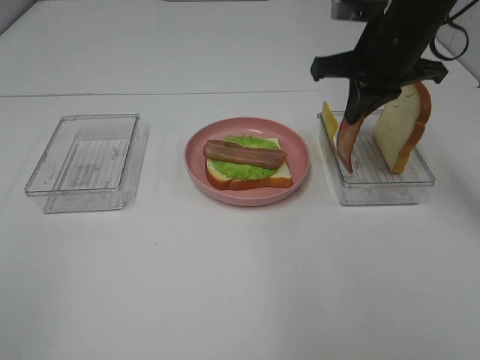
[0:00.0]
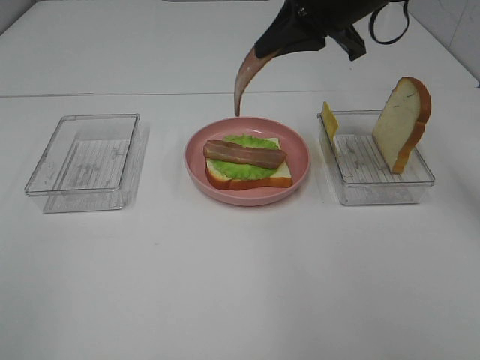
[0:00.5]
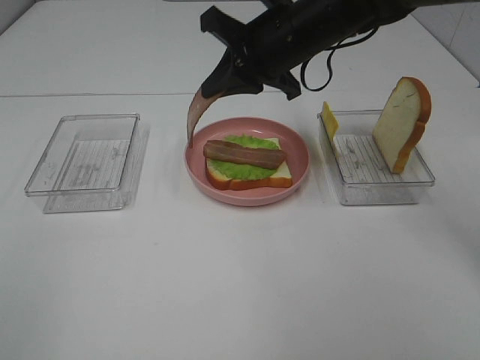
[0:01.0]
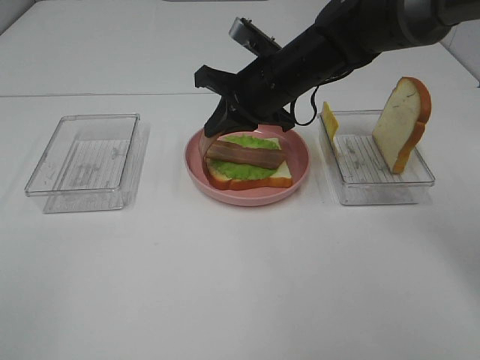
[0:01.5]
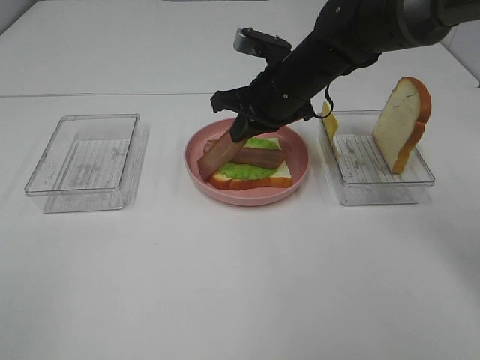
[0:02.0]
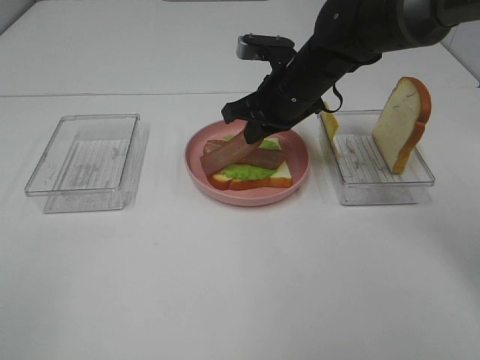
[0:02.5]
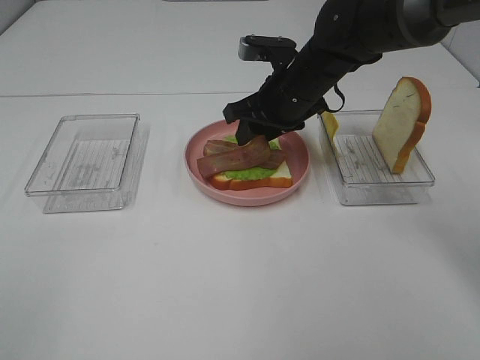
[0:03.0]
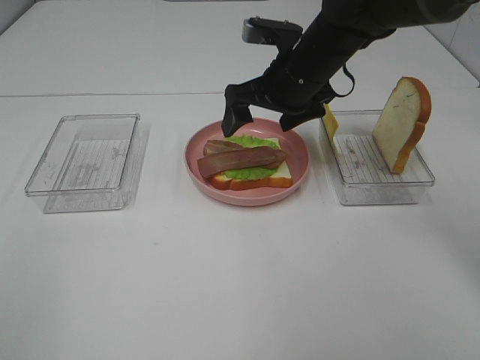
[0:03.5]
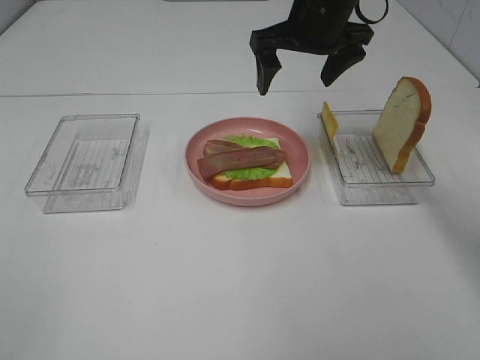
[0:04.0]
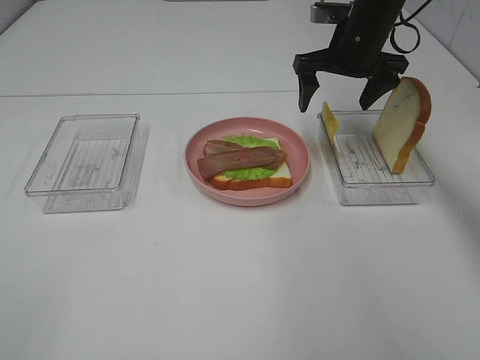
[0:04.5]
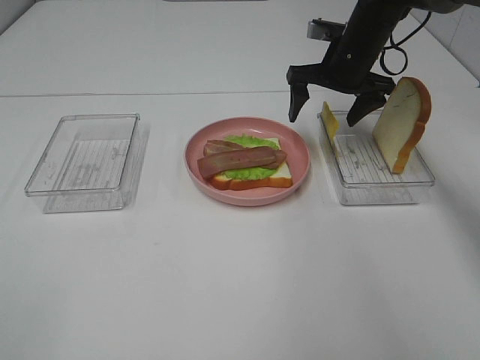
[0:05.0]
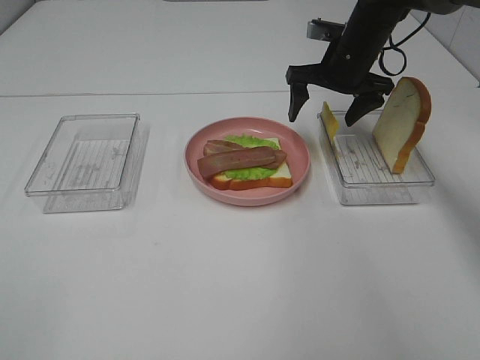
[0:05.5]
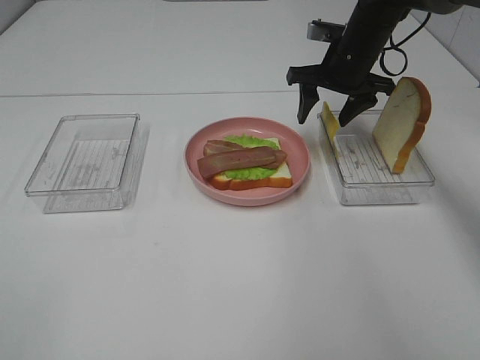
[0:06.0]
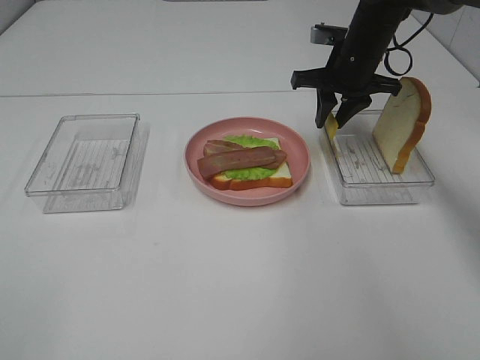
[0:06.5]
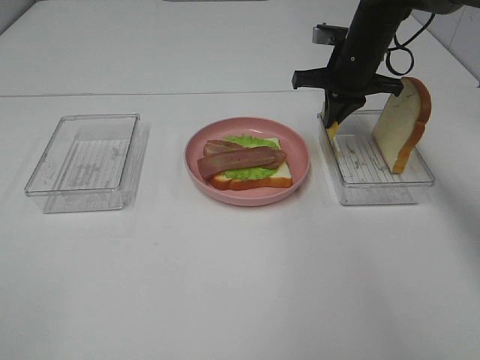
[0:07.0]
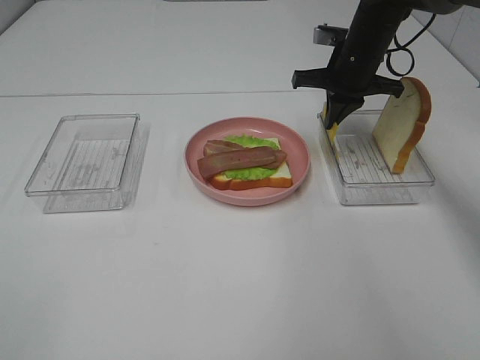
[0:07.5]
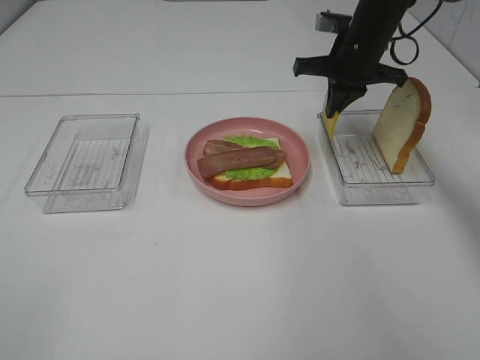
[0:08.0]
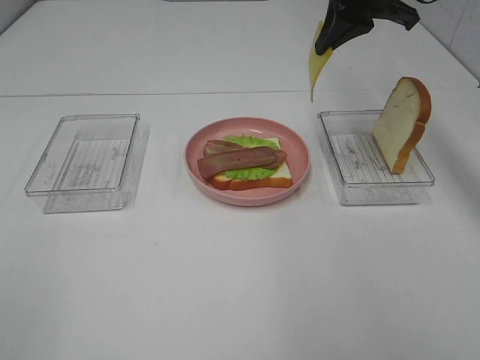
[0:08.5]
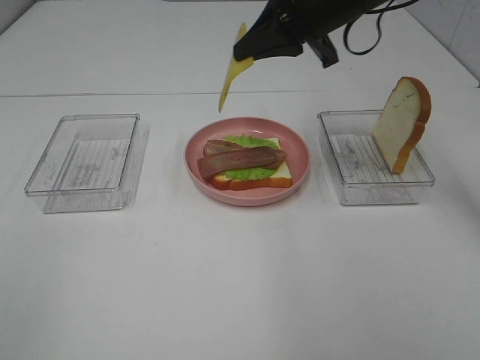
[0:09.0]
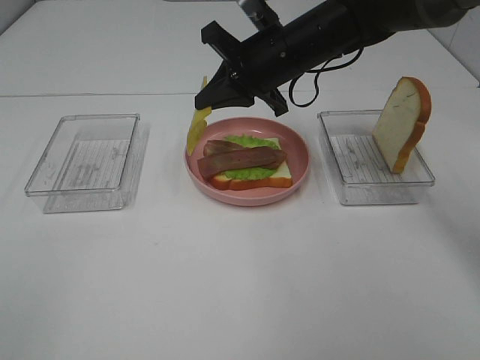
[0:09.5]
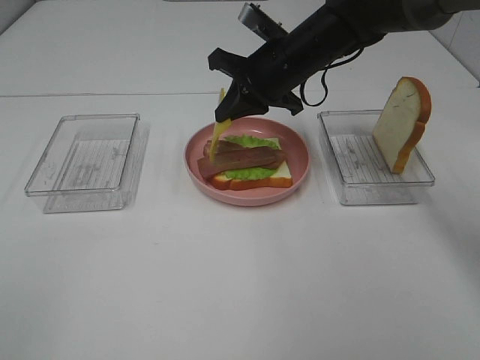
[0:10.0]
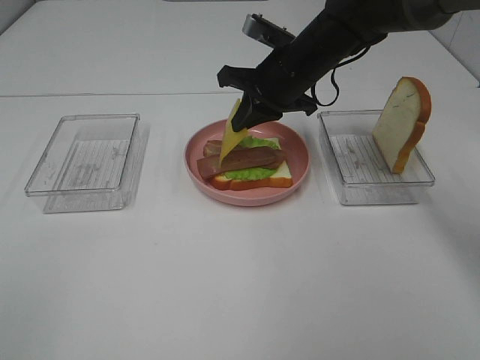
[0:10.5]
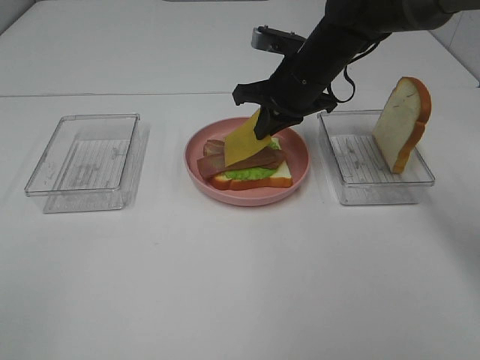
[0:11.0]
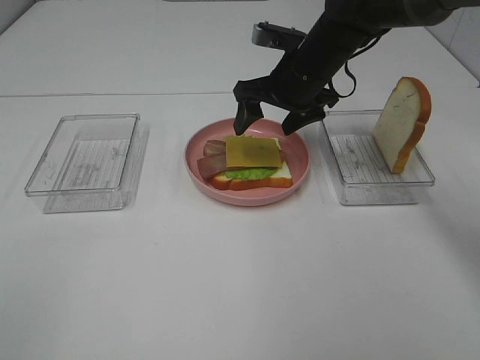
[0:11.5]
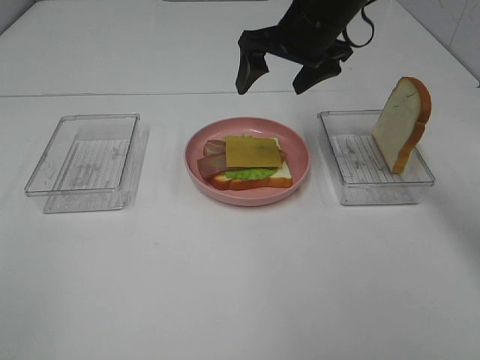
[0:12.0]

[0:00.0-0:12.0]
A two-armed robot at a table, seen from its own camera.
Task of the whole recording: Make sandwiches.
Step, 0:00.0 to 0:03.0: Right hand:place bacon on bacon.
Step, 0:03.5 to 0:07.5: Right hand:grab the cheese slice.
Step, 0:08.0 to 0:11.0: Right hand:place the cheese slice on top of the bacon.
0:00.0 to 0:02.0: The right gripper is displaced to the left and downward by some 15 cm.
0:02.0 to 0:04.0: The right gripper travels upward by roughly 10 cm, and opens.
0:04.0 to 0:06.0: The right gripper shifts some 10 cm downward and to the right.
0:06.0 to 0:08.0: The right gripper closes its fingers.
0:08.0 to 0:10.0: The right gripper travels to the left and backward by some 10 cm, and goes upward and returns, approximately 10 cm each way.
0:10.0 to 0:12.0: The right gripper travels upward by about 5 cm, and opens.

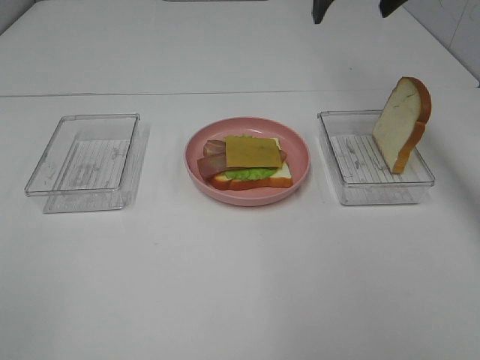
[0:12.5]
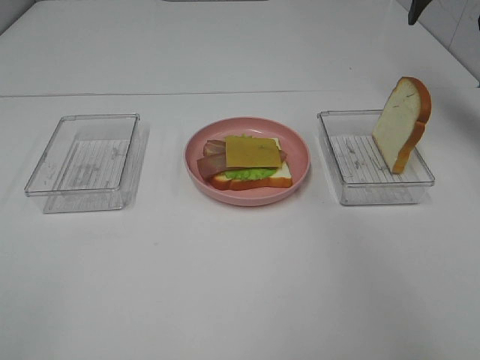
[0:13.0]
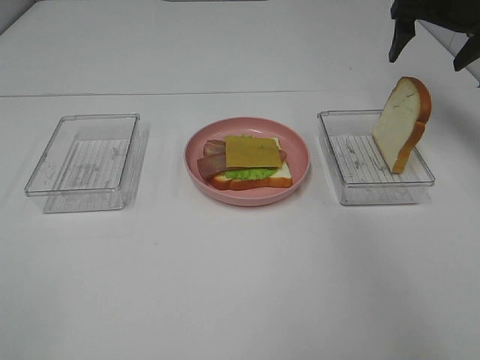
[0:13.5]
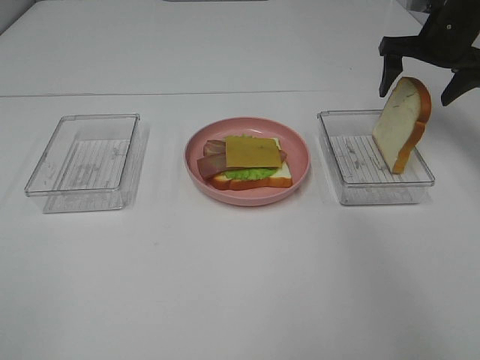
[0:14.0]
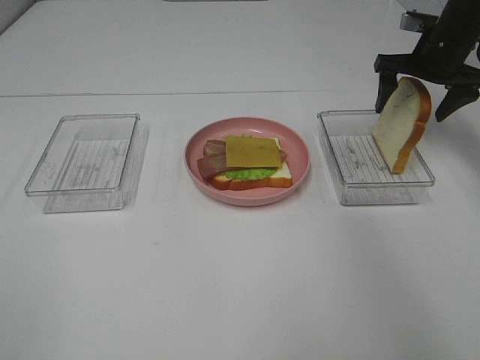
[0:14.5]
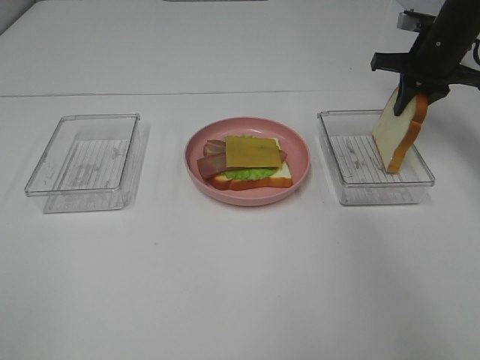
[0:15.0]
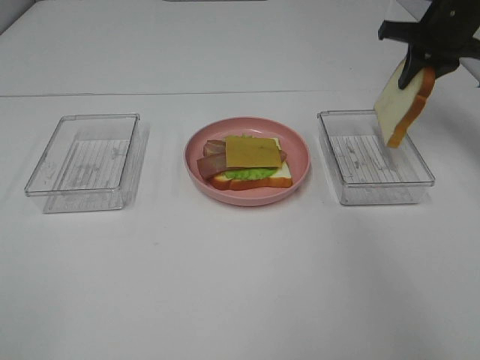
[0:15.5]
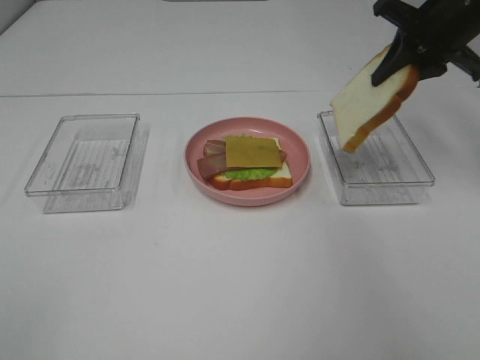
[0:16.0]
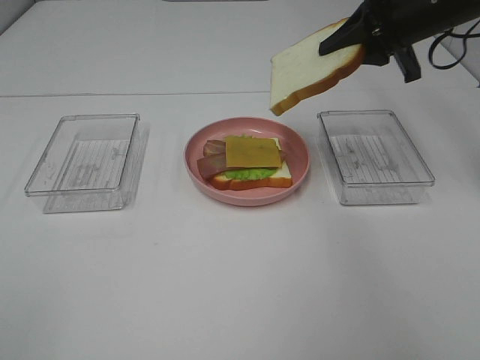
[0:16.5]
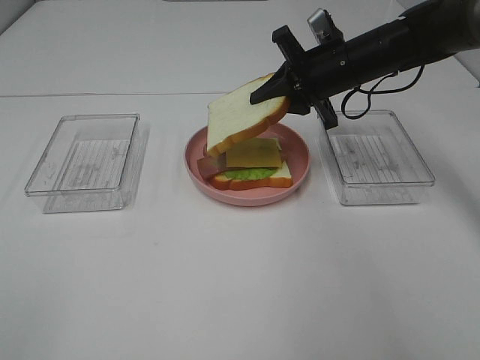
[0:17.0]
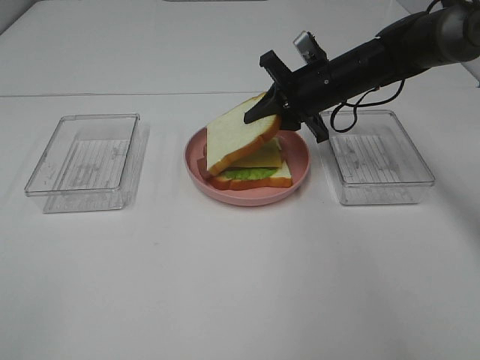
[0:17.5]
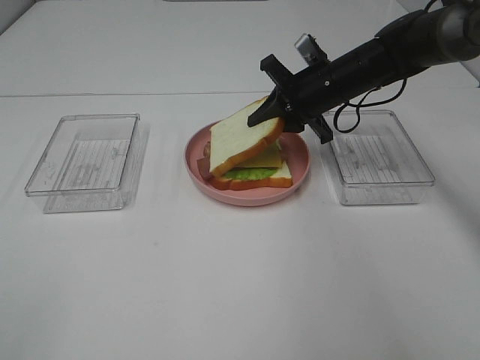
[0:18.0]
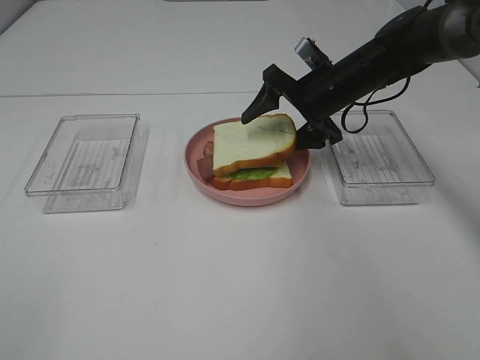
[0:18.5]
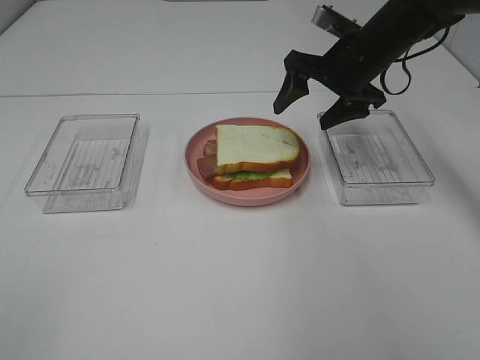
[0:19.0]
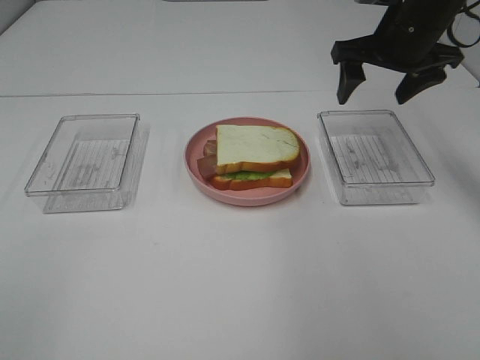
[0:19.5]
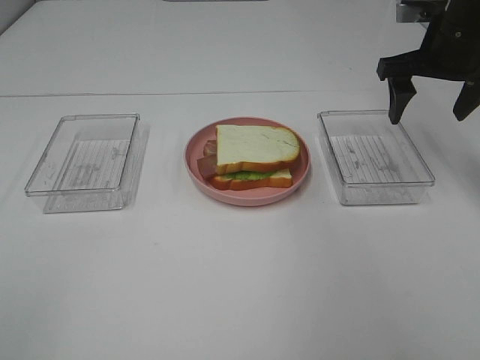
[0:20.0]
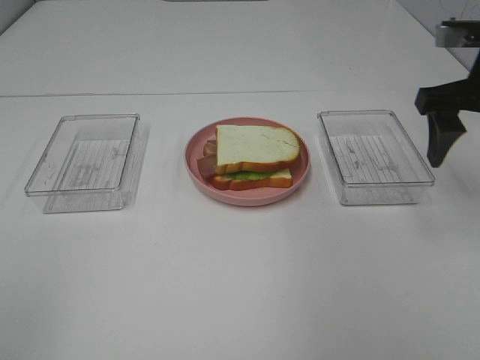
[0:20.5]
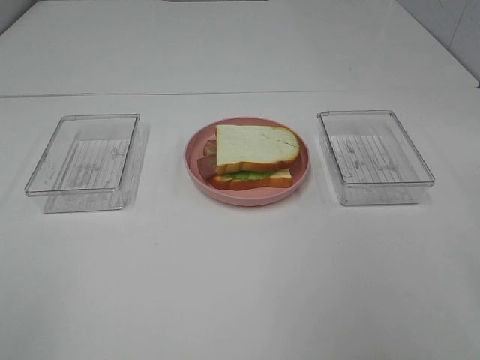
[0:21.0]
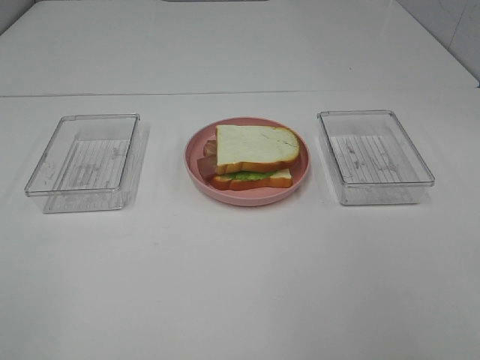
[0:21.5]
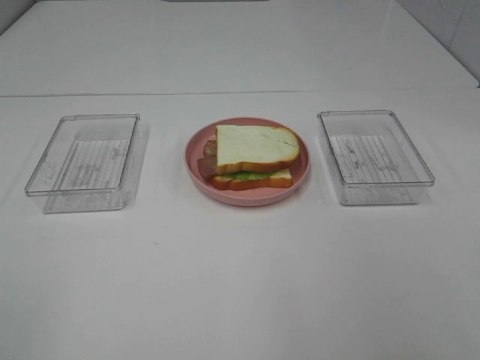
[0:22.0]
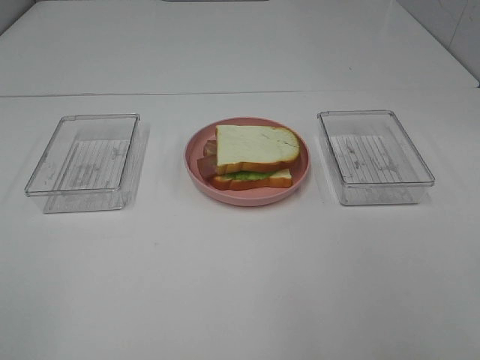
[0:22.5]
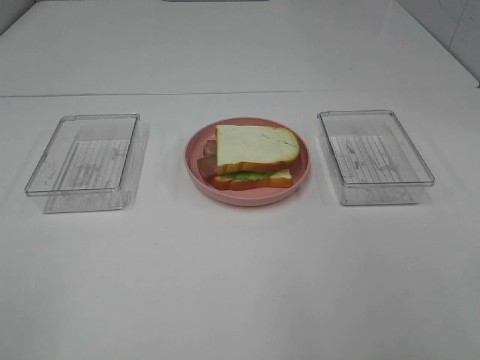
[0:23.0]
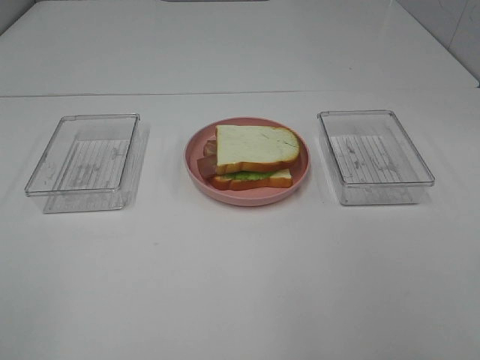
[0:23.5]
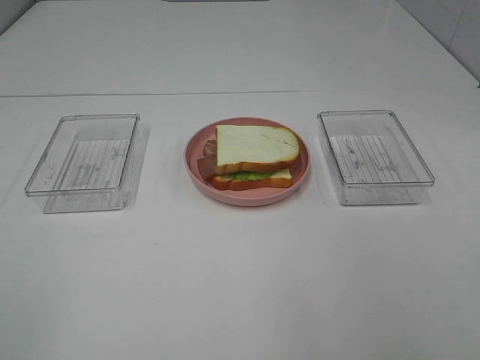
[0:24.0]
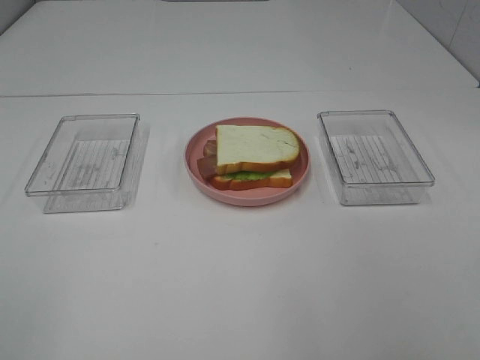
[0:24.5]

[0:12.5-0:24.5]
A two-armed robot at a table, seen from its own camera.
Task of the whole recording: Make sandwiches.
Step, 0:12.5 to 0:14.5: Right hand:grab the bread slice.
Step, 0:15.0 to 0:18.5: Right hand:place the bread slice on the cheese slice.
0:12.5 to 0:14.5: The right gripper goes roughly 20 cm downward and to the right.
0:14.5 to 0:16.5: The right gripper travels to the left, backward and upward by some 10 cm, and closes its fingers.
0:16.5 to 0:18.5: The right gripper travels downward and to the left by about 15 cm, and opens its fingers.
0:18.5 to 0:20.5: The right gripper moves backward, upward and to the right, about 20 cm.
0:20.5 to 0:22.5: The right gripper travels backward by roughly 30 cm.
0:22.5 to 0:24.5: Both grippers stay about where they are.

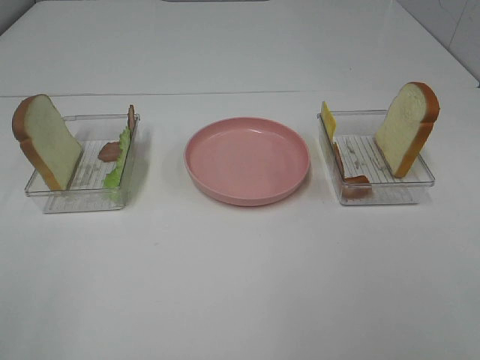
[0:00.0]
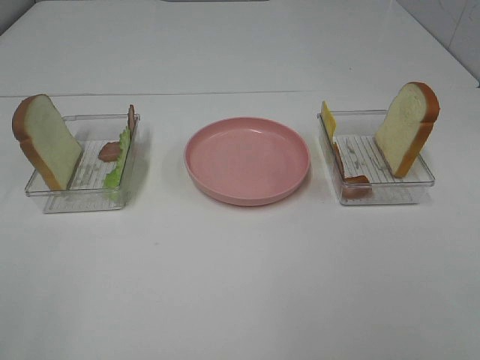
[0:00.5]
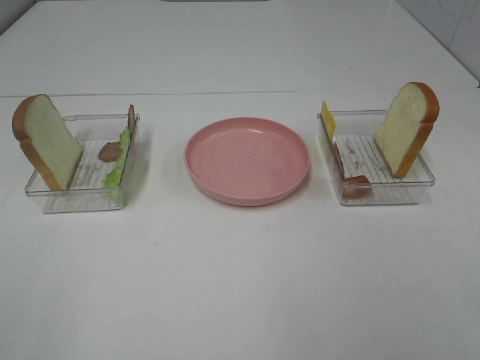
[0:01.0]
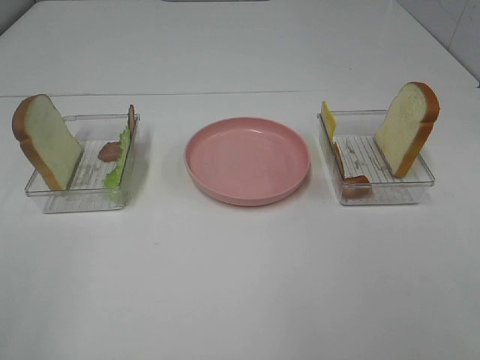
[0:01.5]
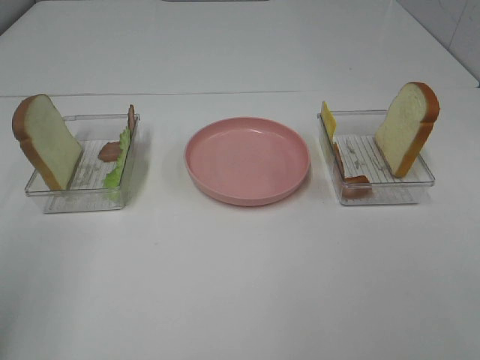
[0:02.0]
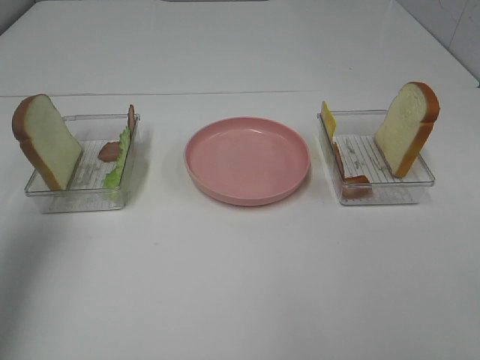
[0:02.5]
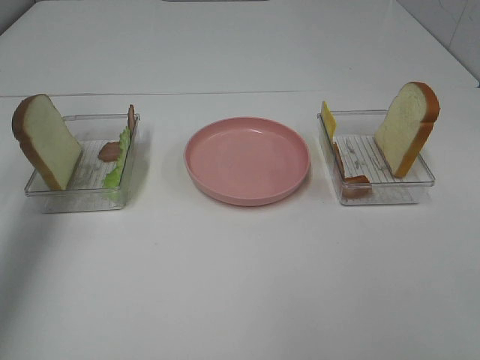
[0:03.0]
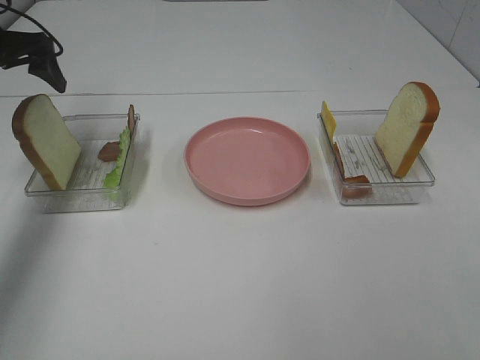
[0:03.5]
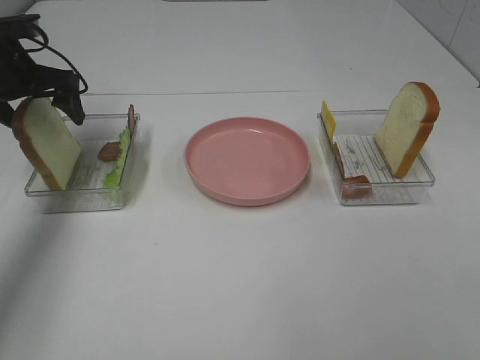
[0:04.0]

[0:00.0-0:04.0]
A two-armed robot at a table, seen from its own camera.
Task of the whole recording: Make sandwiches.
0:02.0 to 0:04.0: The left gripper travels forward and downward by approximately 35 cm.
